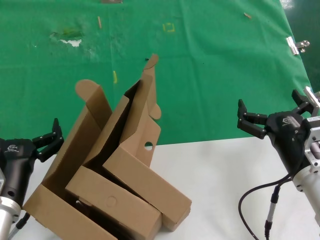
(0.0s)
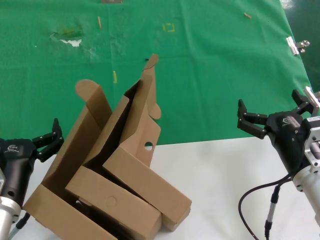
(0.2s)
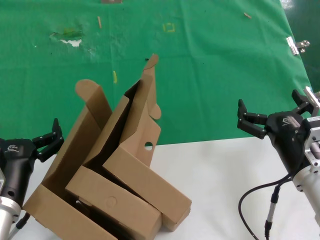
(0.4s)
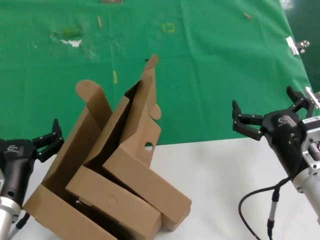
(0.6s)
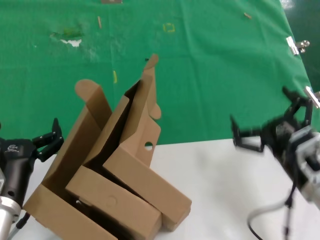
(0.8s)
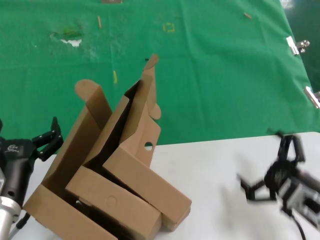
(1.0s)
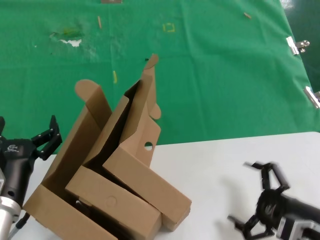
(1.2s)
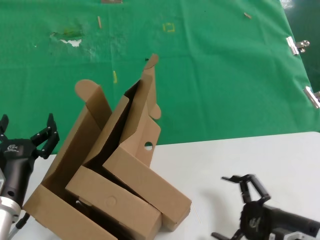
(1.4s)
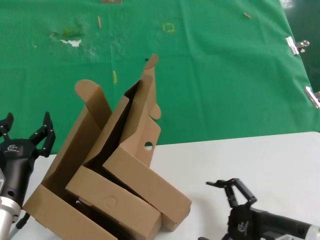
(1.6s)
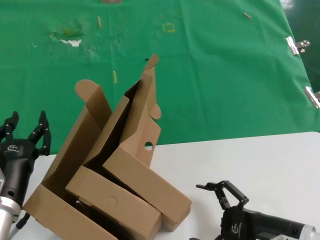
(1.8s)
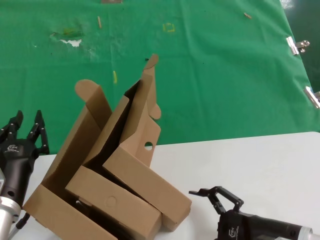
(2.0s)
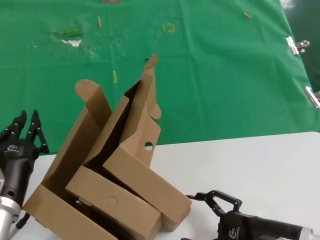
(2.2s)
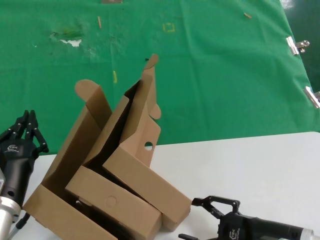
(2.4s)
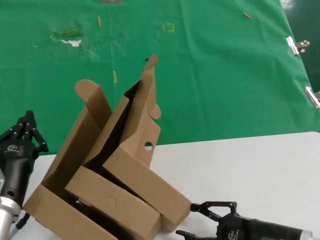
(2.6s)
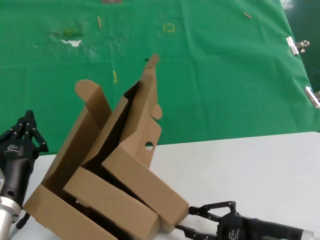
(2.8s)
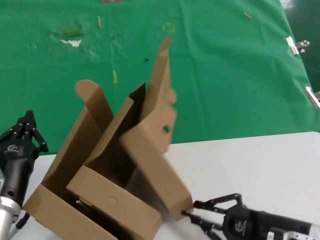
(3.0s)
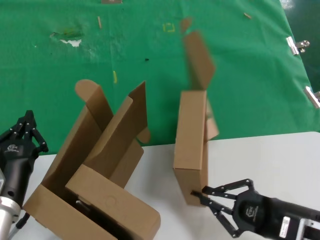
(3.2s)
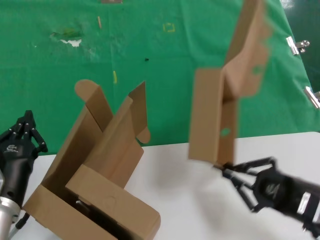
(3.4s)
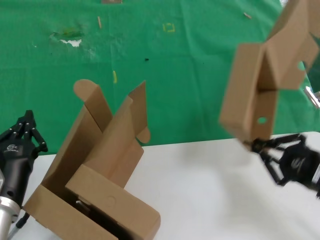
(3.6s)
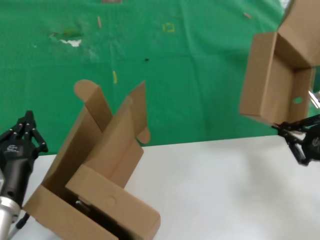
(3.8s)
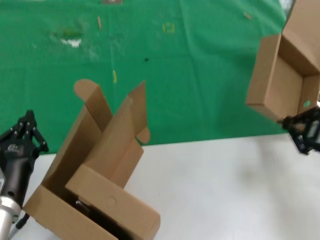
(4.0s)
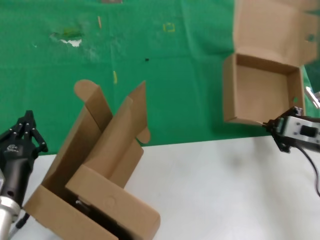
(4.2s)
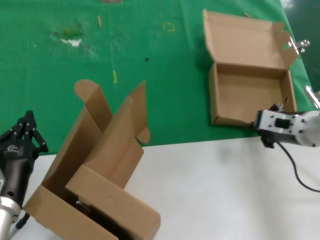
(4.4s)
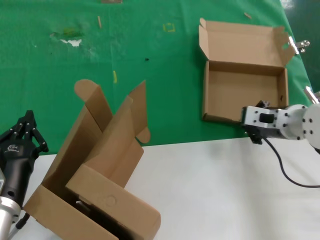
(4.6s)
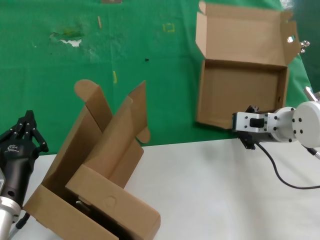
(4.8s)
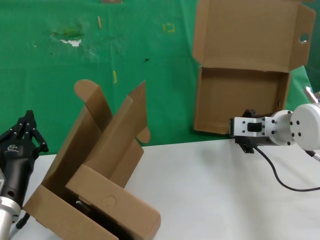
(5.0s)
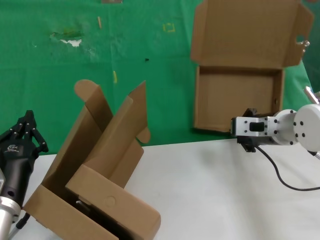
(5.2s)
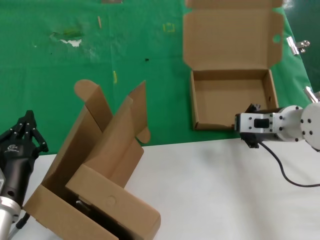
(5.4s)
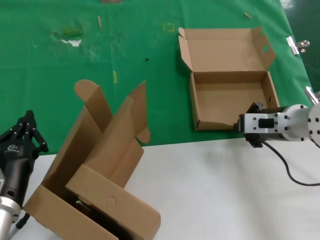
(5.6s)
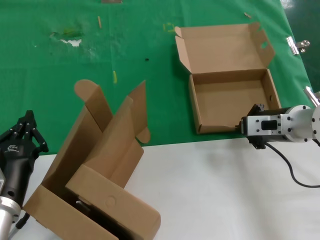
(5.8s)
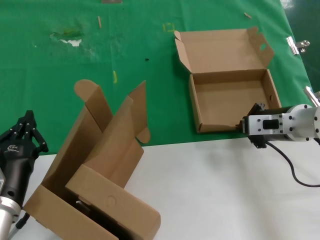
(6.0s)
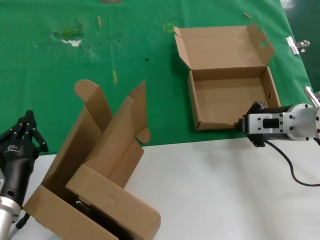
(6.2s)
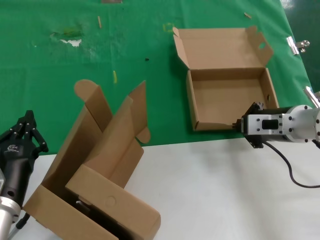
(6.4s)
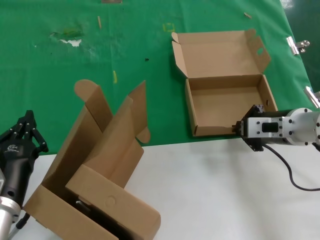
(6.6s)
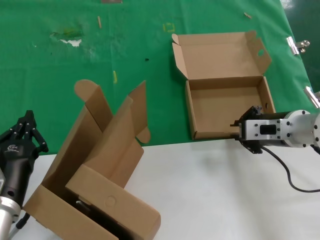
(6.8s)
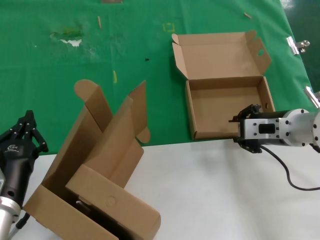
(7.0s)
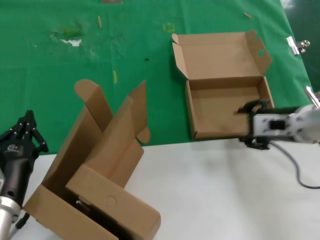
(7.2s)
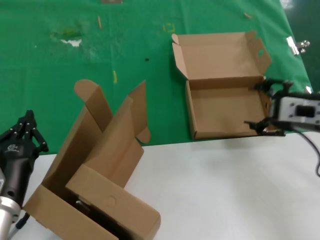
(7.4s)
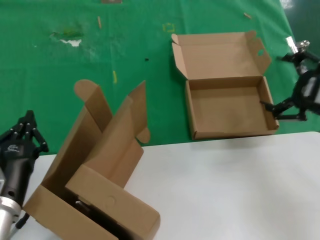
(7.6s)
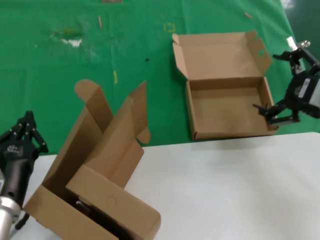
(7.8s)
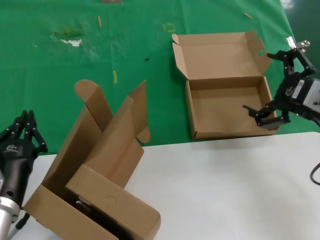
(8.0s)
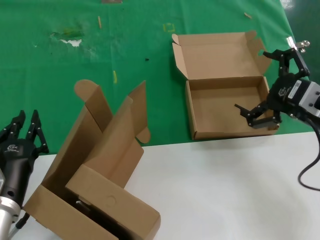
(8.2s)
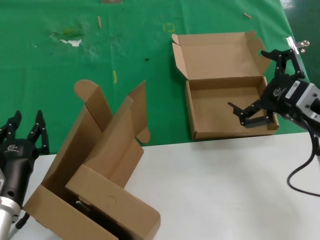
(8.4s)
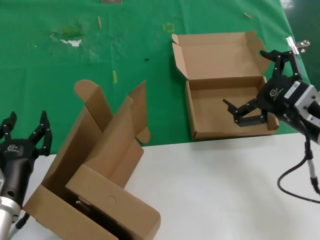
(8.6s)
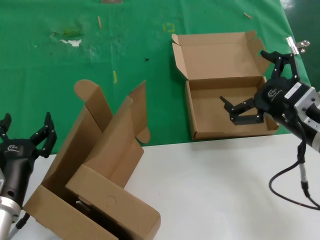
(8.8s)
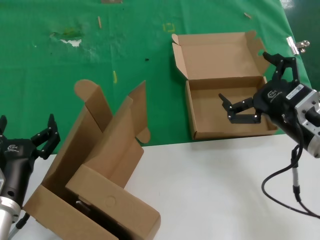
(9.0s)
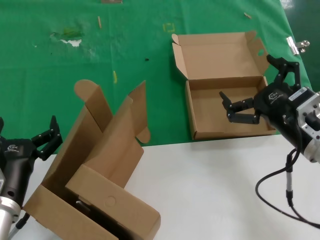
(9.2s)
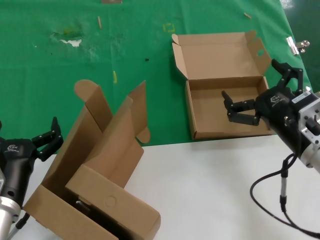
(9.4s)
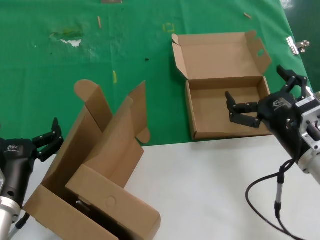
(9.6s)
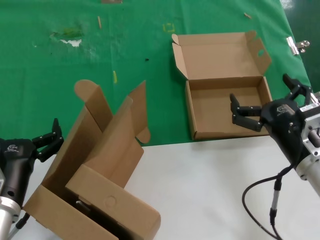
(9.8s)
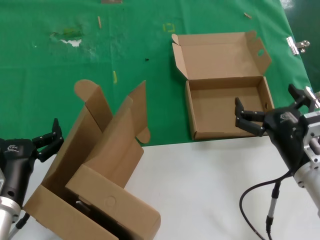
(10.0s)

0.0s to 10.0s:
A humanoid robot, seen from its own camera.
Task of the whole recording: pick up the paper box and put it at the back.
Step, 0.0s to 3.0s: Grasp the paper box.
Step, 3.2s to 6.8s: Place the paper box on the table.
0.0s to 1.4s: The right hand travels backward by approximately 5 cm.
1.4s to 2.8s: The hands stay close to where they were, moving slightly.
2.8s to 4.2s: The right hand goes approximately 20 cm forward, upward and to the right.
4.2s to 5.8s: The right hand is displaced to the left and forward by approximately 10 cm.
5.8s to 7.2s: The hands stay close to where they were, moving slightly.
7.2s to 8.6s: The right hand heads backward, covering approximately 10 cm.
8.6s to 10.0s: The right hand travels downward by some 10 cm.
